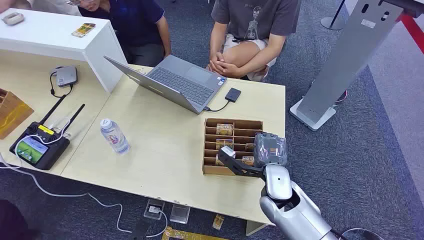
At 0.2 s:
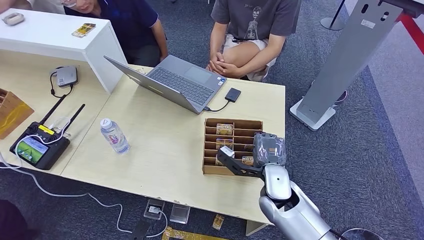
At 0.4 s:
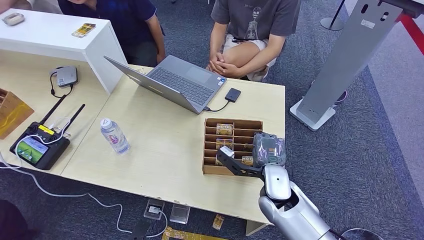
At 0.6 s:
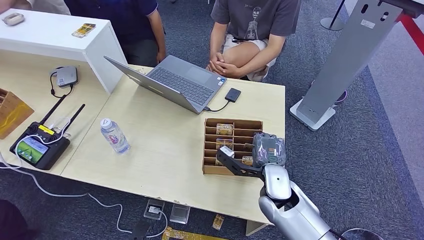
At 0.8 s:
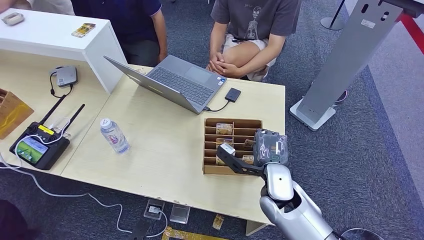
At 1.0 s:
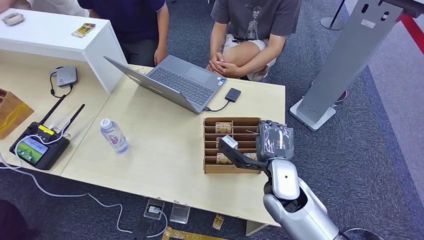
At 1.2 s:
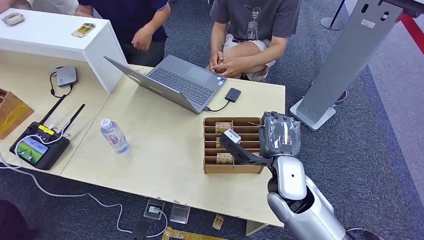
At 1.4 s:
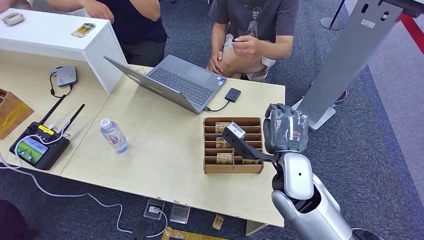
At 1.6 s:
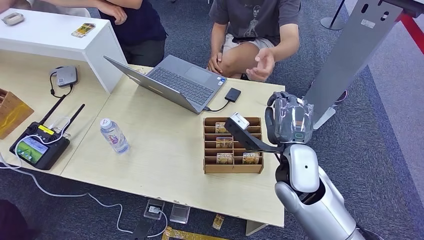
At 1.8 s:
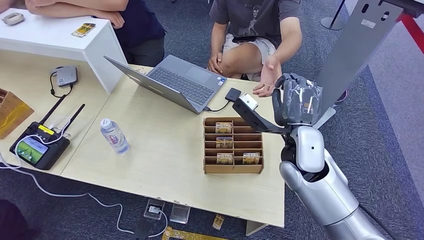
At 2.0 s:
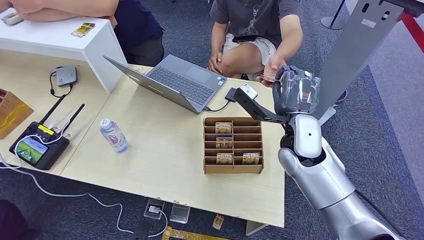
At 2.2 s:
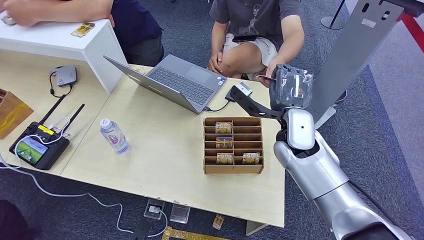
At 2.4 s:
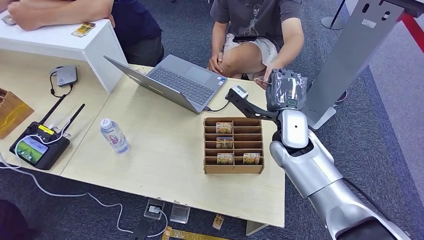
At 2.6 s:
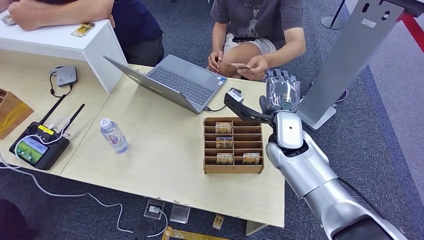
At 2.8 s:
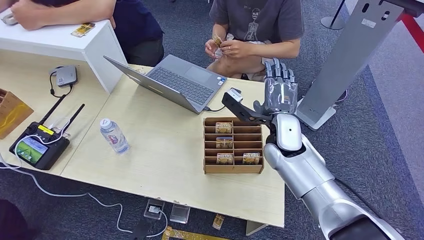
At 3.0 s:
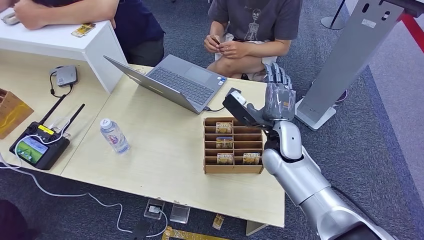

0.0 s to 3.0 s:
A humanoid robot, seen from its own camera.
Step, 0.0 to 1.2 s: Pick up the room card from the card holder.
Step, 1.4 to 3.0 s: Hand the room card to the target.
1.6 to 3.0 s: The right hand goes approximately 10 cm forward.
